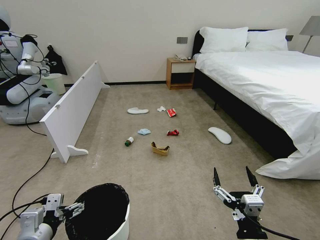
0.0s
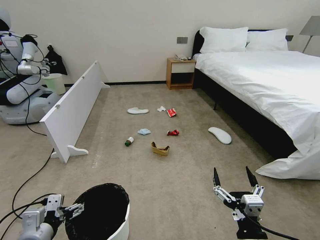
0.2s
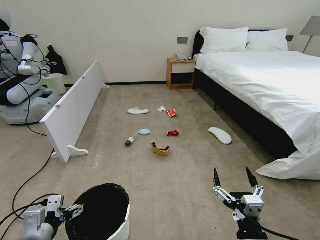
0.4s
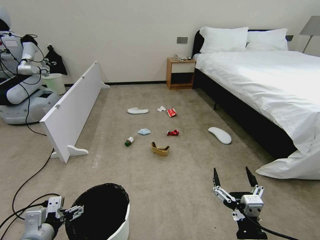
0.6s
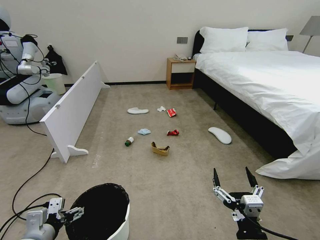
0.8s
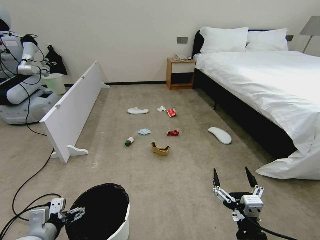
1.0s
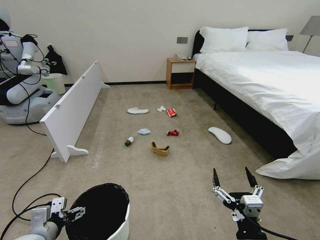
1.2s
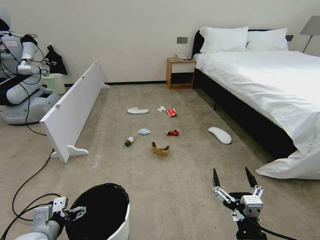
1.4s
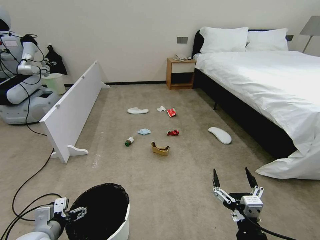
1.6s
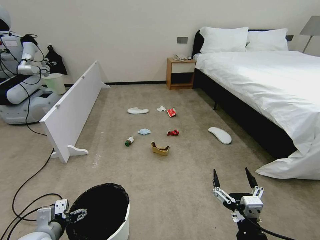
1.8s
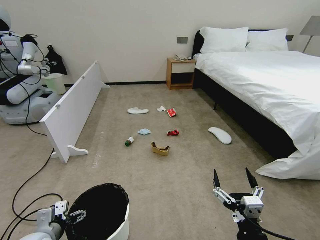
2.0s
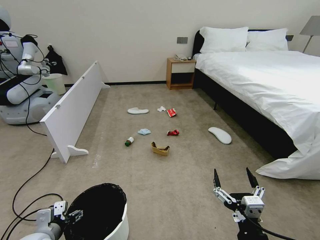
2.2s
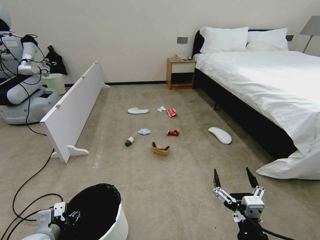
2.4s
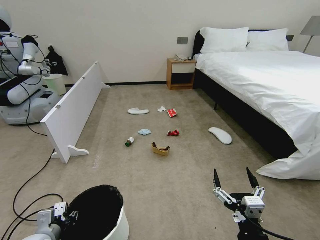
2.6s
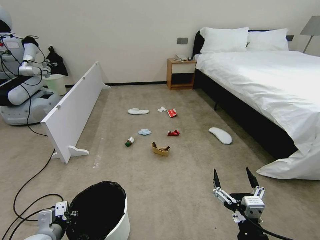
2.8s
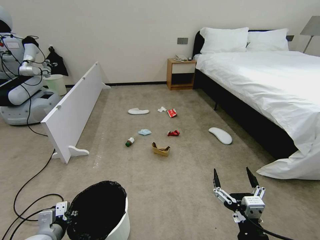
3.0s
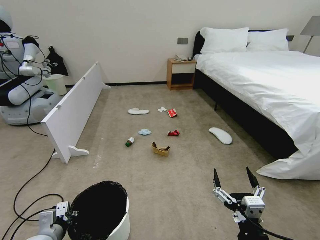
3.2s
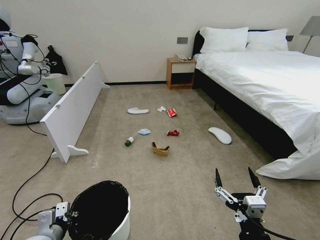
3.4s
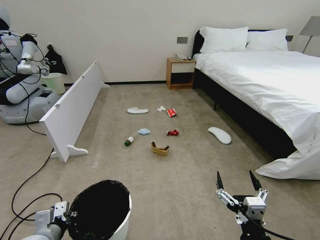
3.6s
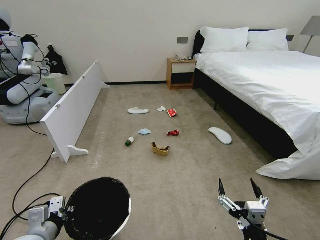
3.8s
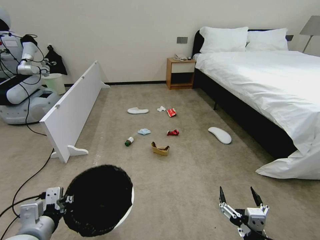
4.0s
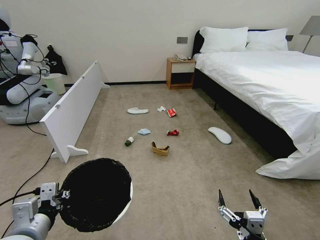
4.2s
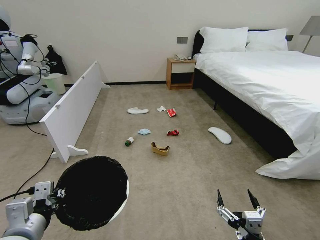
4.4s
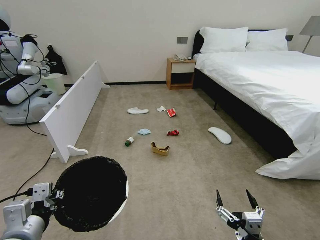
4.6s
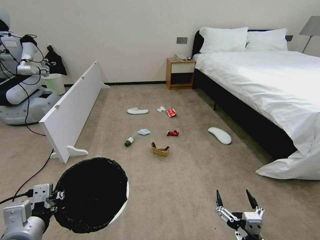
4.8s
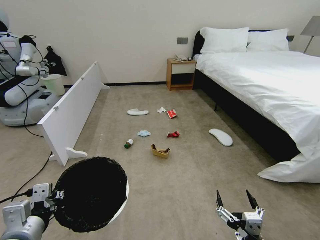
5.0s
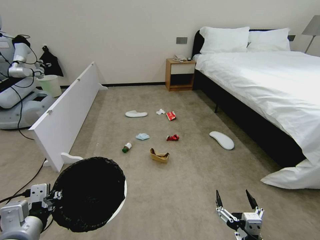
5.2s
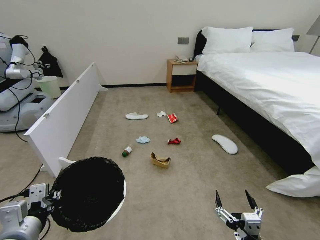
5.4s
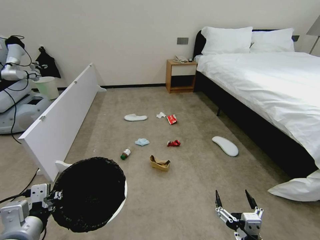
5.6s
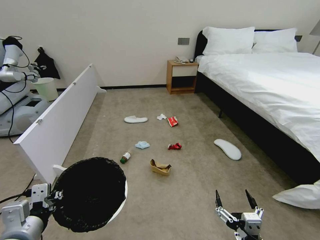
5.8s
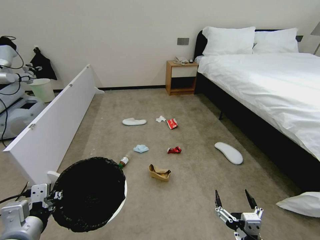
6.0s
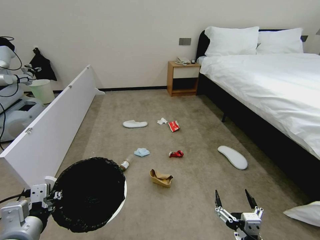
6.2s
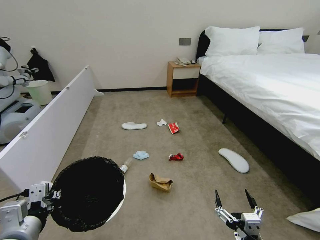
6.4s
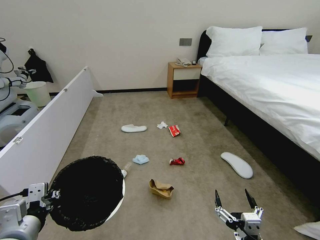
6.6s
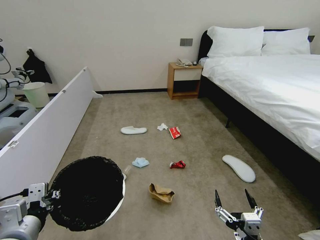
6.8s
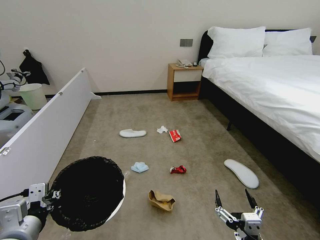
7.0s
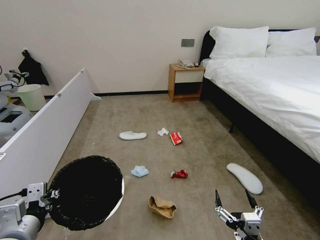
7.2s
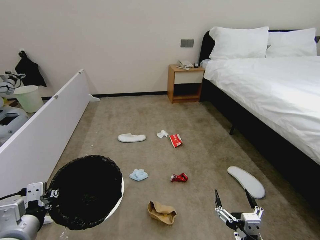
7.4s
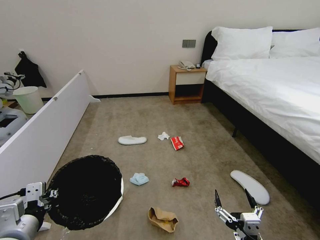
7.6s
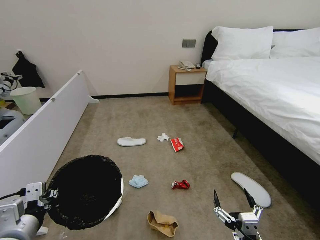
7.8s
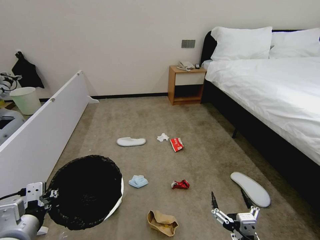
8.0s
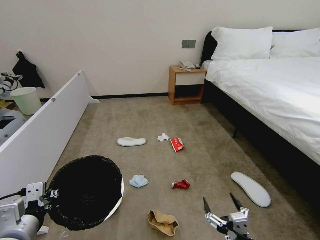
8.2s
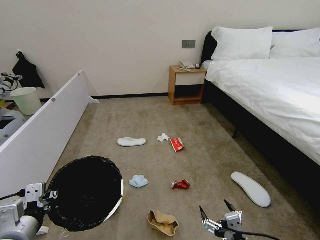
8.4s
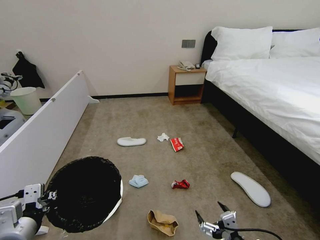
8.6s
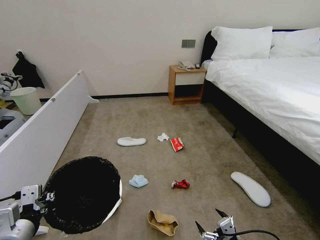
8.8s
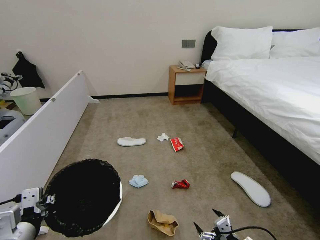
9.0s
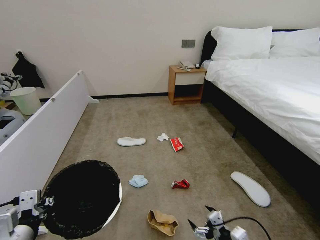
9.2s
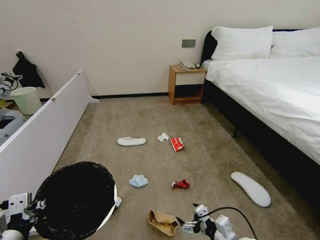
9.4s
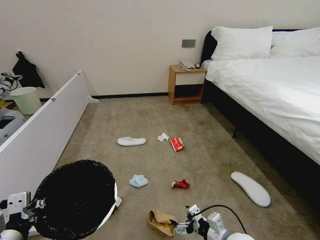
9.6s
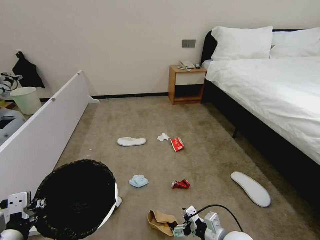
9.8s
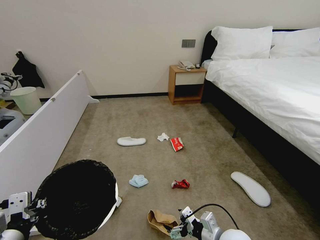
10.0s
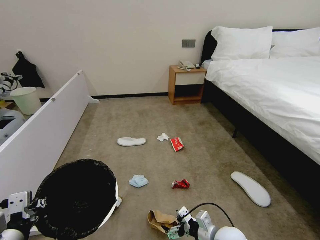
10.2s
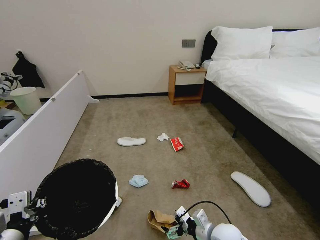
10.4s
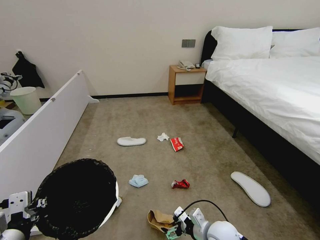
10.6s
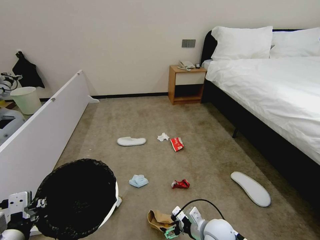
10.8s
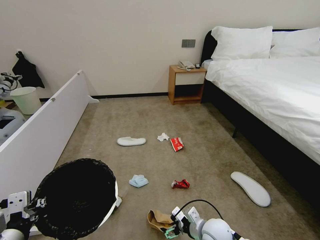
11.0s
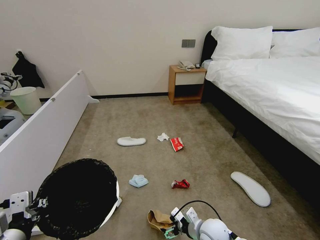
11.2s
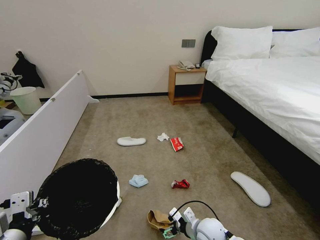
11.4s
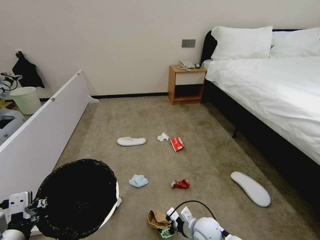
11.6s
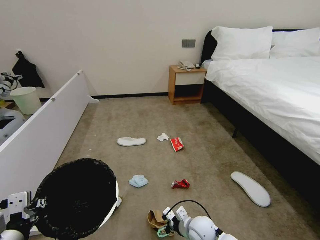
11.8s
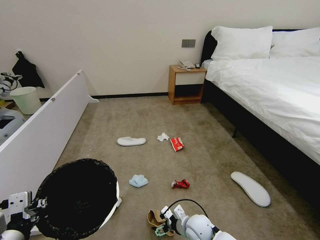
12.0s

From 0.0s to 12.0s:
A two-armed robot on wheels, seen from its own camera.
Task of the whole recording: Pick up the trash bin, then pick up the garbage from the floor and place it into the trash bin.
From 0.0s to 1.6s: The left gripper goes roughly 5 cm downward.
From 1.6s to 3.0s: The left gripper closes its fingers.
From 3.0s to 4.4s: The left gripper heads upward, covering some 15 cm.
From 7.6s to 9.0s: The right gripper moves to the right, about 5 cm.
From 9.0s to 10.4s: The right gripper shifts roughly 15 cm forward and to the left.
From 10.4s to 12.0s: The right gripper goes approximately 10 cm downward, to the left and forward.

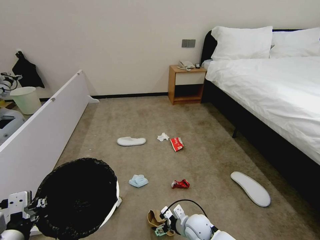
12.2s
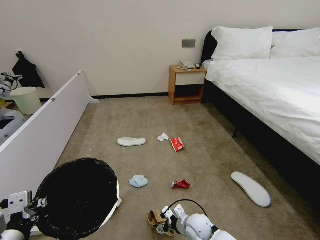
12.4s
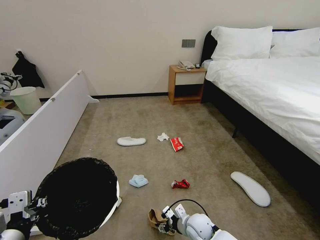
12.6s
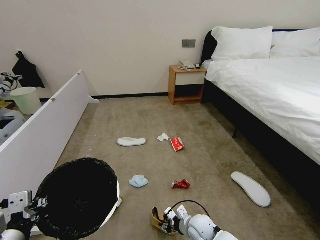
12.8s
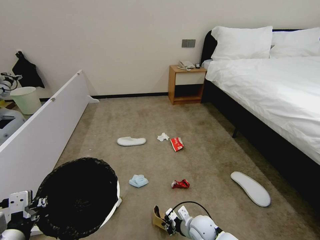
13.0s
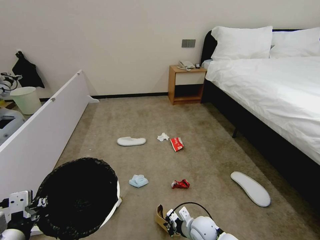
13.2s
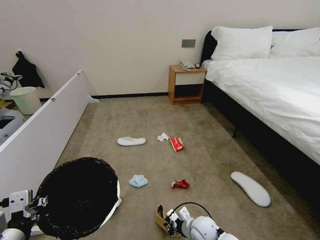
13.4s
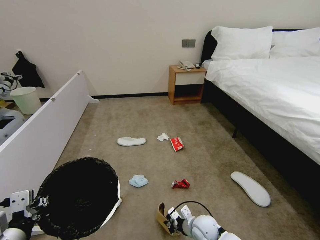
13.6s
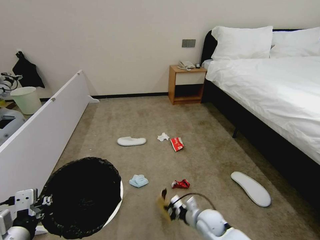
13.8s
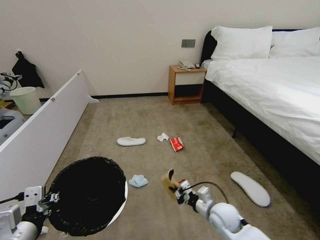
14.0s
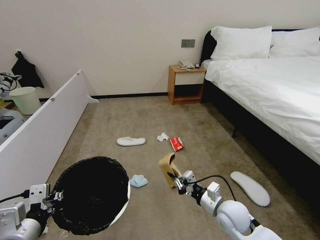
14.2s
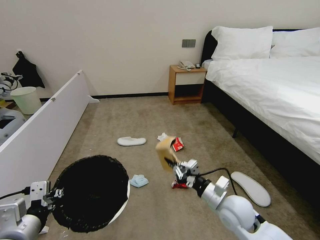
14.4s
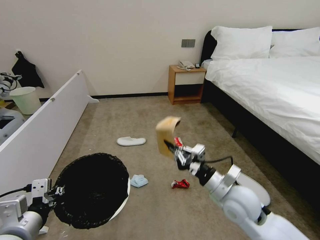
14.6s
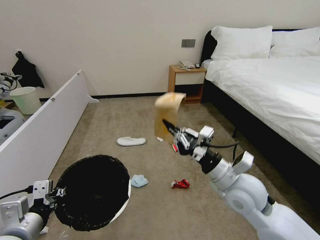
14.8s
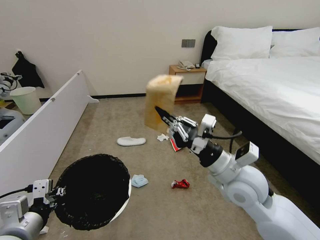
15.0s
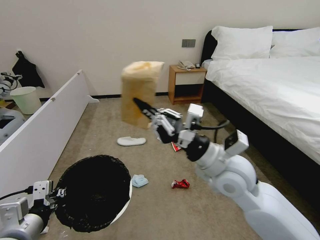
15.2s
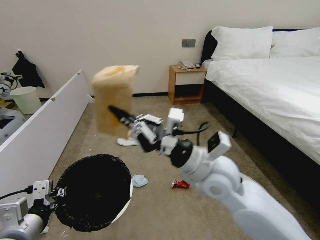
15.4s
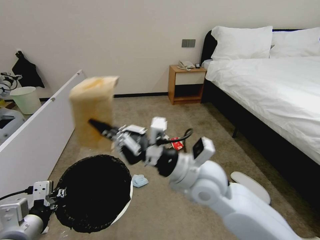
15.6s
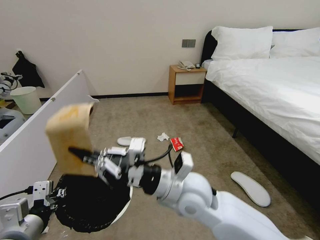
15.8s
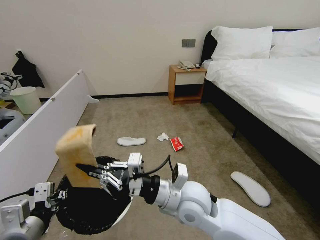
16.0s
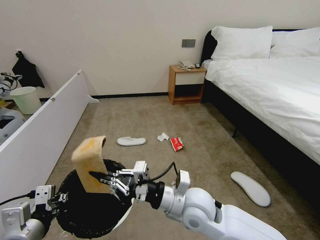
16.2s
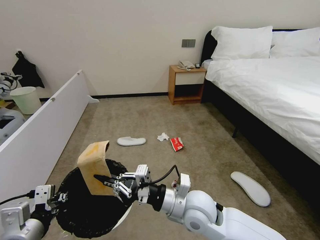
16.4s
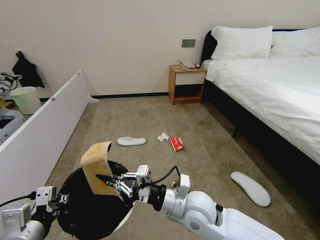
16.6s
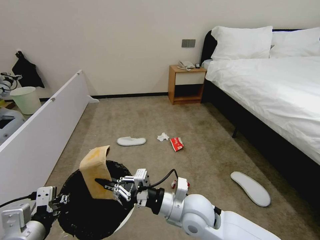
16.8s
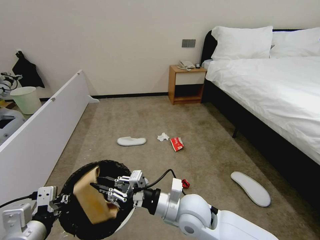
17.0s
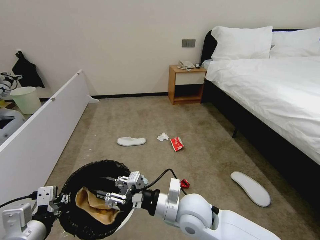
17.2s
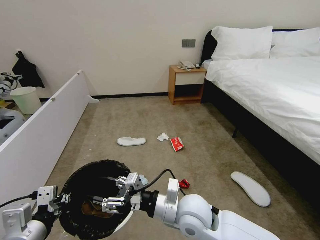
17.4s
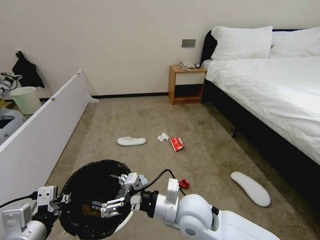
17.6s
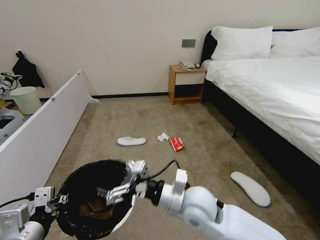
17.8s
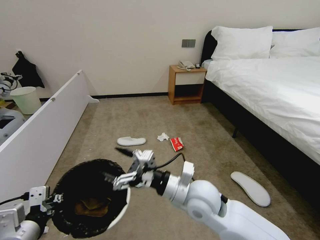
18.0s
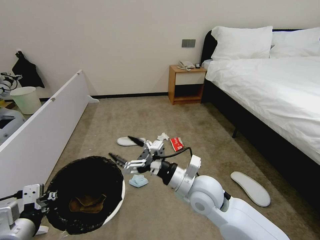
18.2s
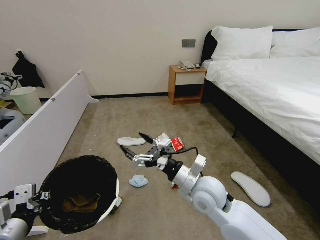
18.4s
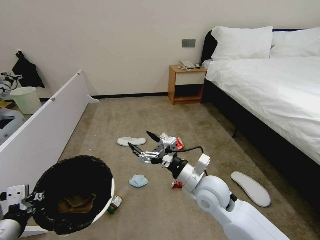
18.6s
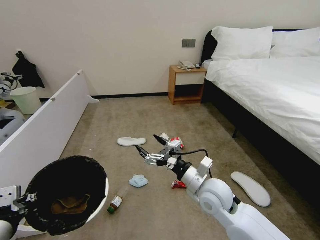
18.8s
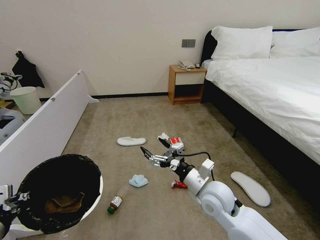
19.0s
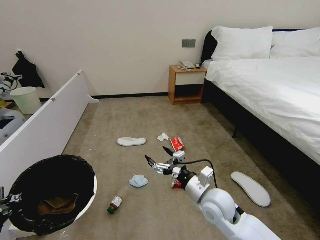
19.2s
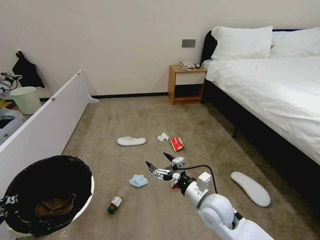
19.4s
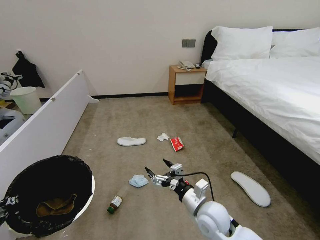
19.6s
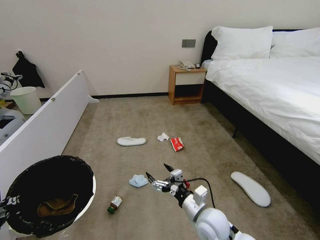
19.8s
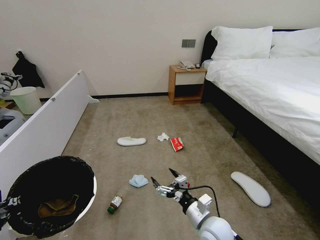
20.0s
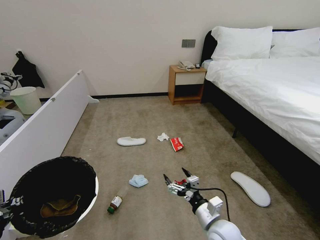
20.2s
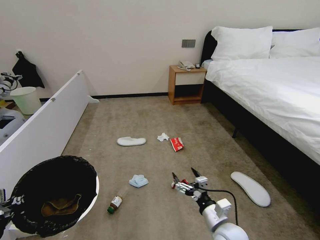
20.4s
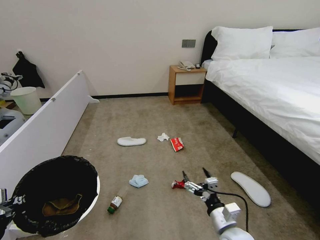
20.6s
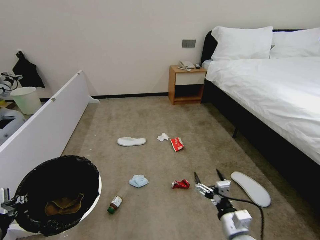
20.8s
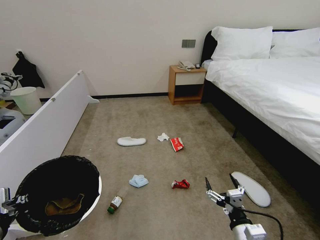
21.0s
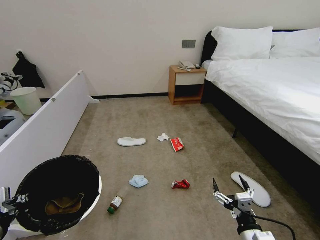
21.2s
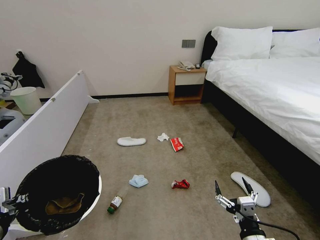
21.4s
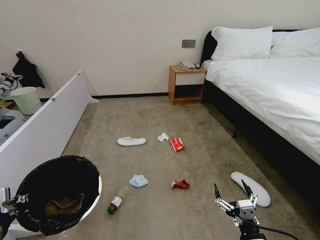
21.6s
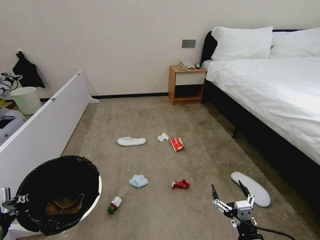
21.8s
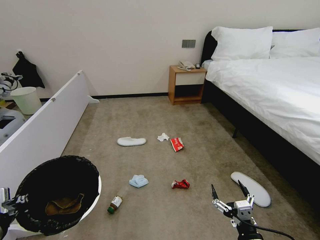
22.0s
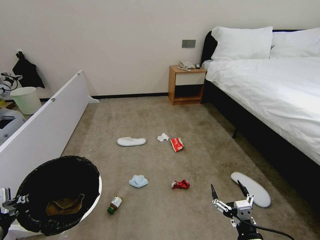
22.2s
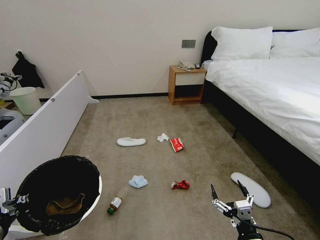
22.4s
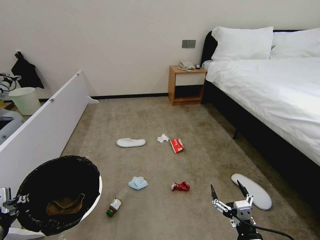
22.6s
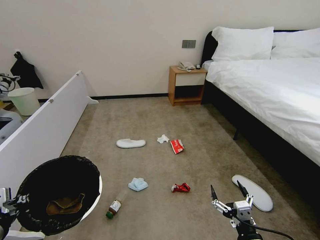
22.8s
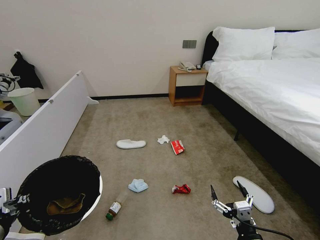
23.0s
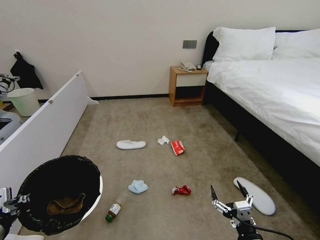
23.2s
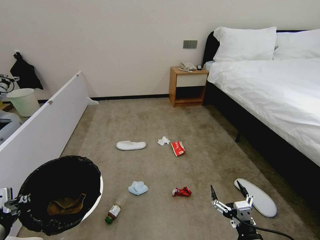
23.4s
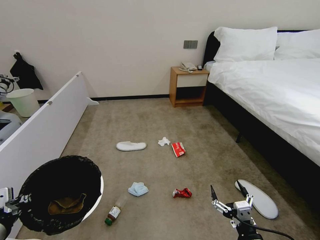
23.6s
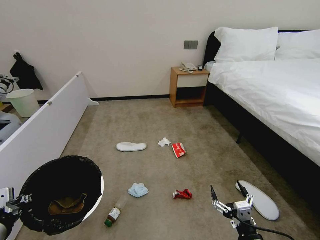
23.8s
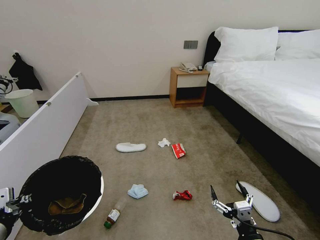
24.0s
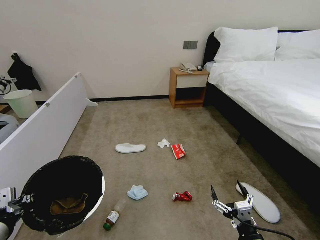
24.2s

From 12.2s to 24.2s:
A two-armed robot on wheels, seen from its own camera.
Task of the whole recording: Pick up the trash bin, then pick up the garbage from the floor and place it into the trash bin.
From 12.2s to 13.8s: The right gripper shifts roughly 5 cm to the right, and closes its fingers.
From 13.8s to 15.2s: The right gripper shifts roughly 30 cm upward.
From 15.2s to 16.6s: The right gripper shifts some 15 cm downward and to the left.
From 16.6s to 18.2s: The right gripper opens up.
From 18.2s to 19.8s: The right gripper moves downward, some 15 cm. Meanwhile the left gripper is displaced to the left by about 5 cm.
From 19.8s to 21.2s: The right gripper is displaced backward and to the right by approximately 15 cm.
From 21.2s to 22.6s: There are only small adjustments of the grippers.
From 22.6s to 24.2s: Both grippers stay put.
